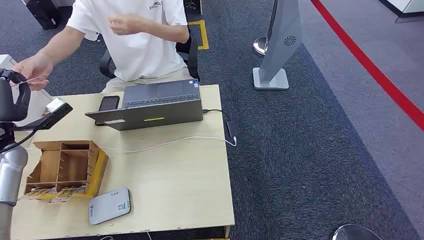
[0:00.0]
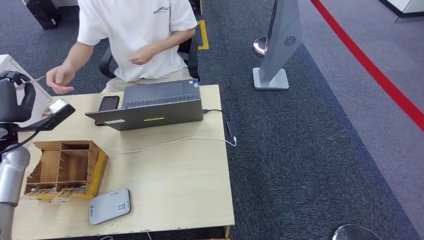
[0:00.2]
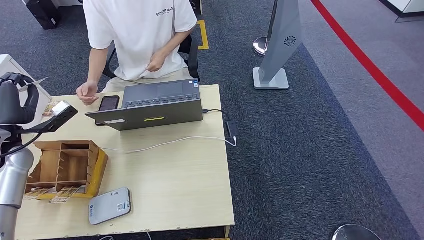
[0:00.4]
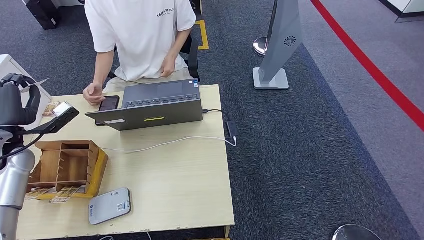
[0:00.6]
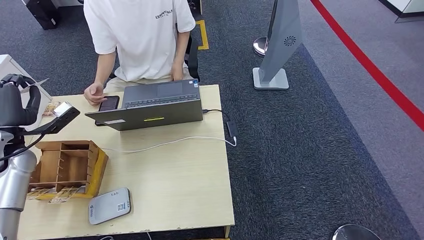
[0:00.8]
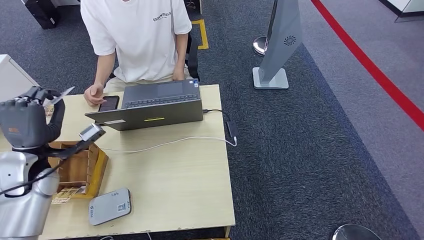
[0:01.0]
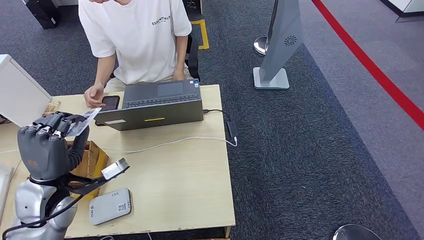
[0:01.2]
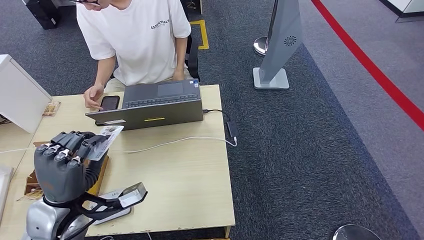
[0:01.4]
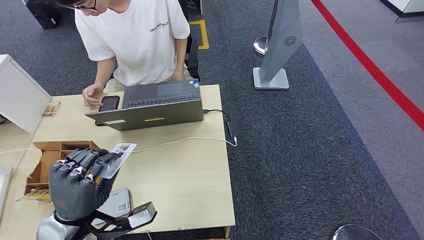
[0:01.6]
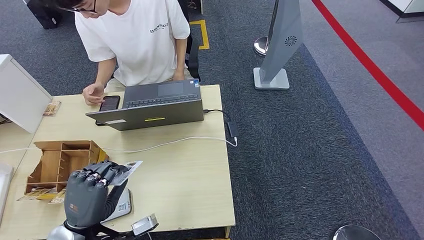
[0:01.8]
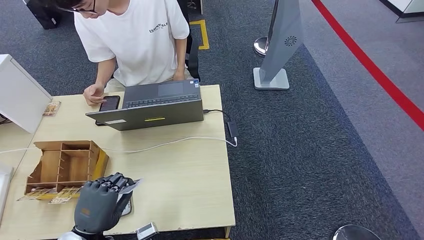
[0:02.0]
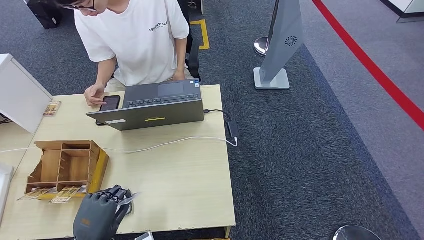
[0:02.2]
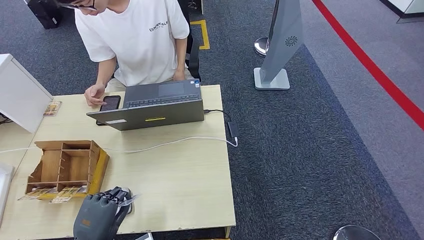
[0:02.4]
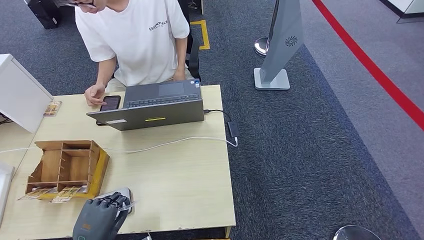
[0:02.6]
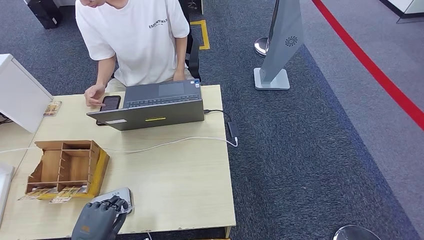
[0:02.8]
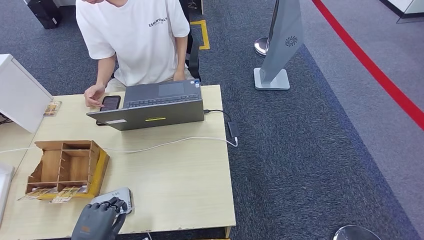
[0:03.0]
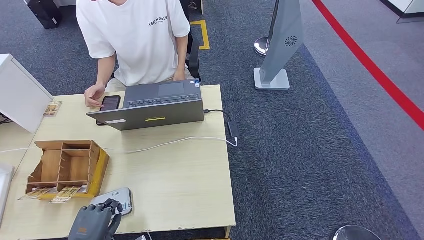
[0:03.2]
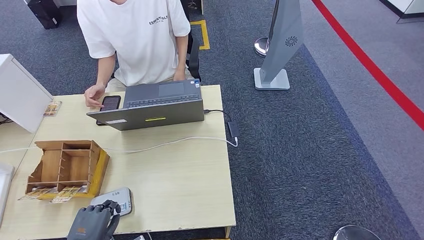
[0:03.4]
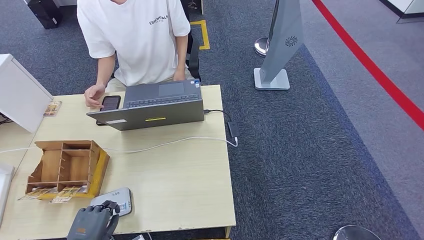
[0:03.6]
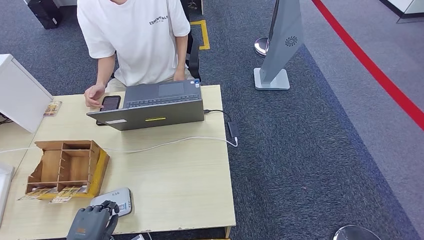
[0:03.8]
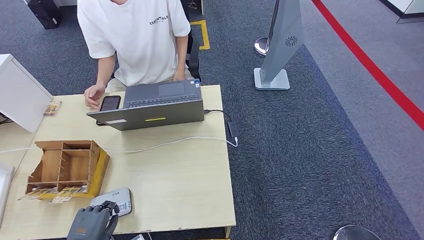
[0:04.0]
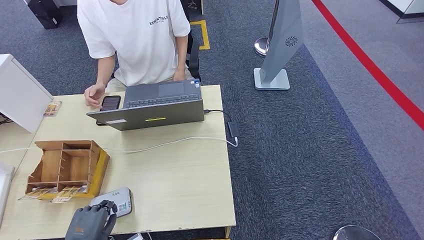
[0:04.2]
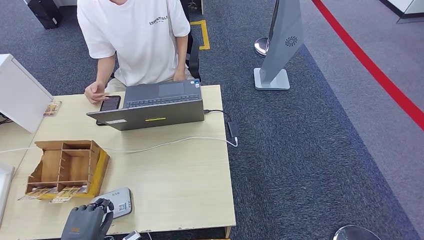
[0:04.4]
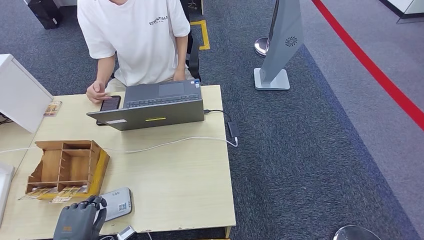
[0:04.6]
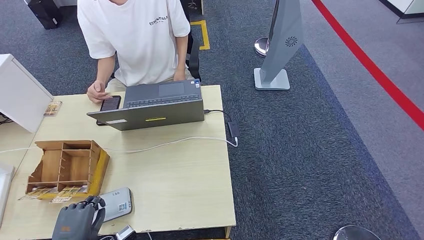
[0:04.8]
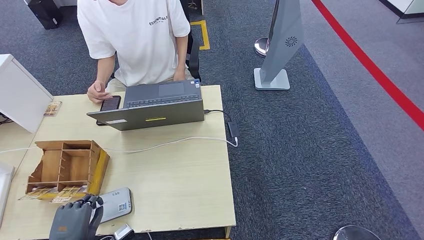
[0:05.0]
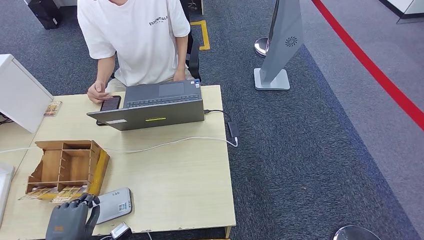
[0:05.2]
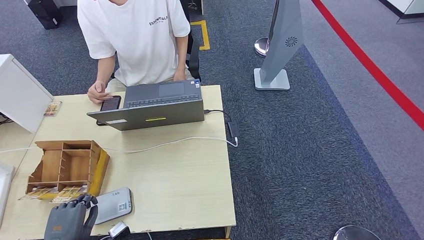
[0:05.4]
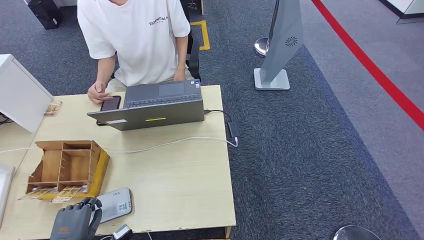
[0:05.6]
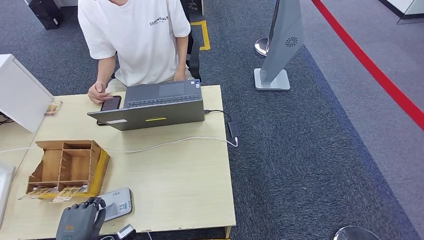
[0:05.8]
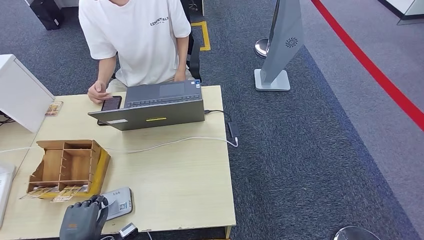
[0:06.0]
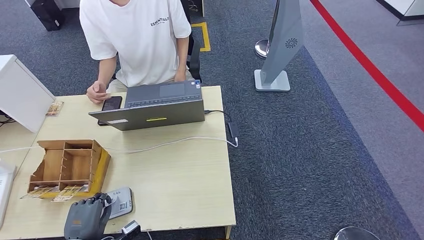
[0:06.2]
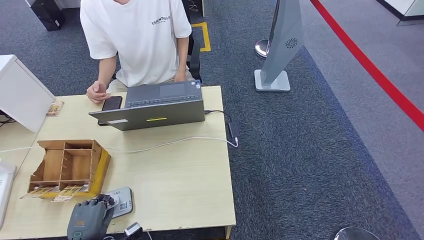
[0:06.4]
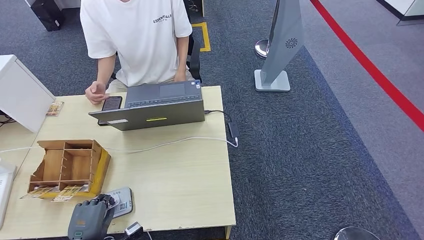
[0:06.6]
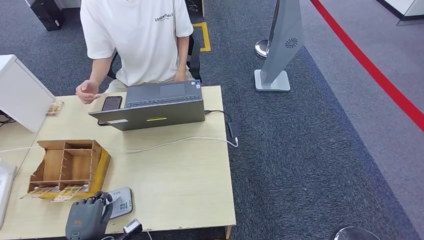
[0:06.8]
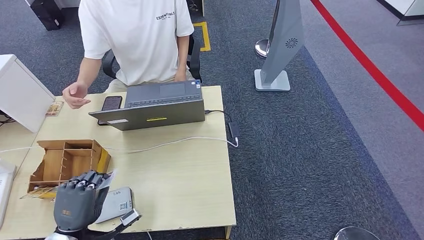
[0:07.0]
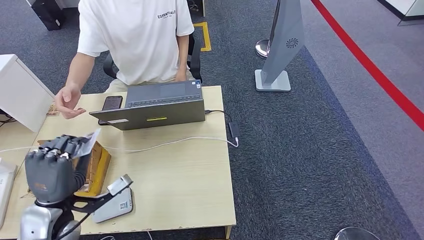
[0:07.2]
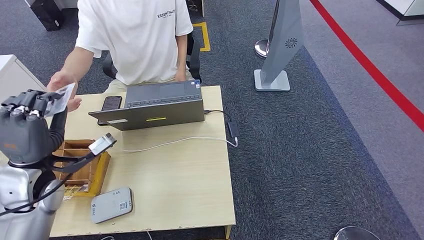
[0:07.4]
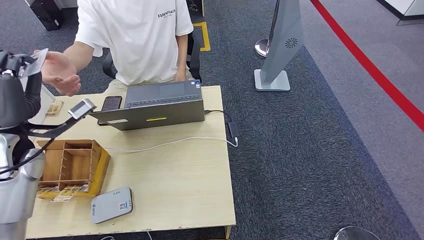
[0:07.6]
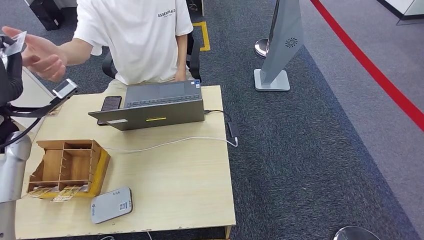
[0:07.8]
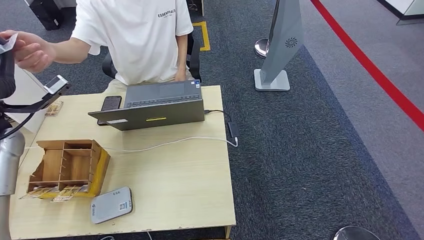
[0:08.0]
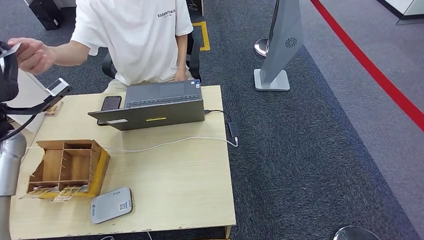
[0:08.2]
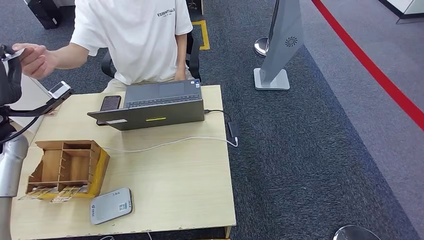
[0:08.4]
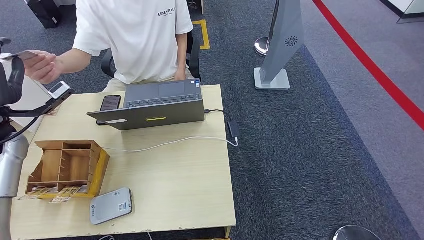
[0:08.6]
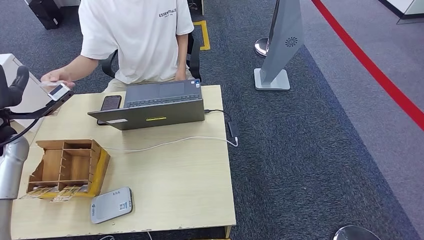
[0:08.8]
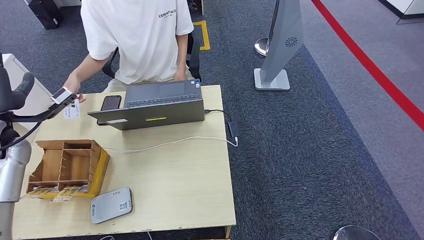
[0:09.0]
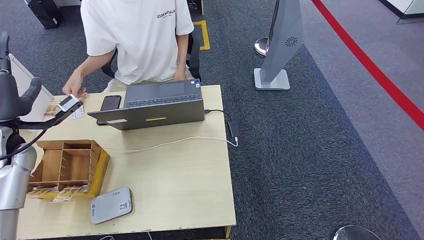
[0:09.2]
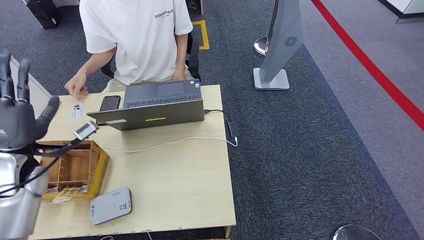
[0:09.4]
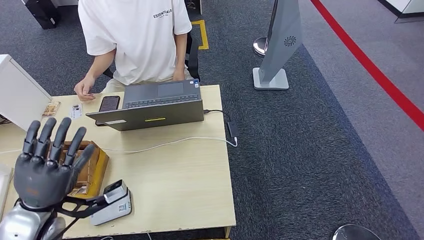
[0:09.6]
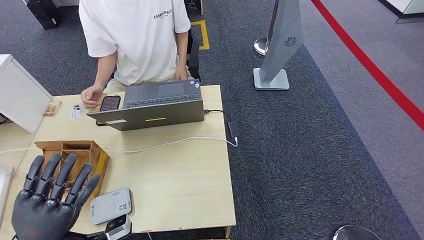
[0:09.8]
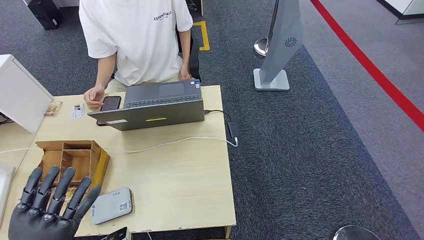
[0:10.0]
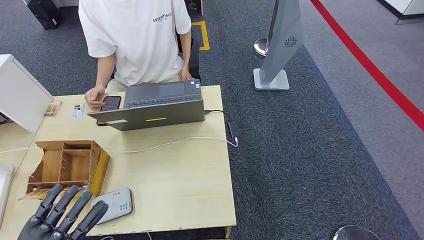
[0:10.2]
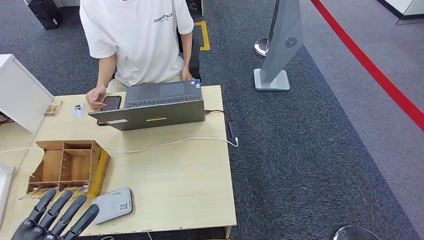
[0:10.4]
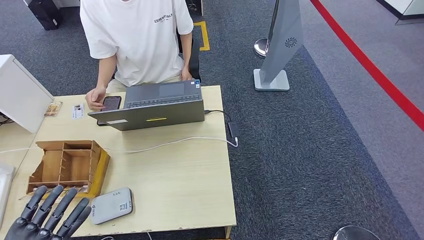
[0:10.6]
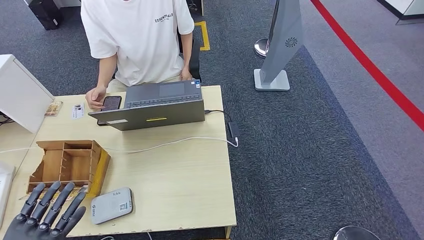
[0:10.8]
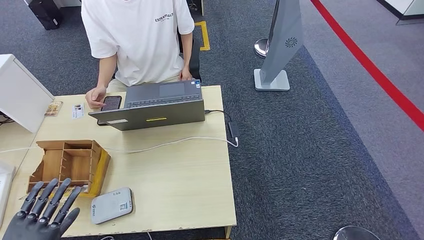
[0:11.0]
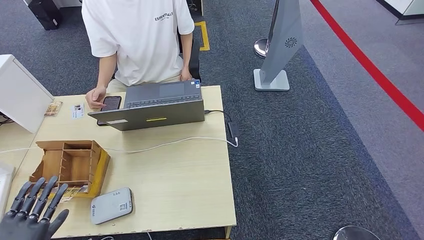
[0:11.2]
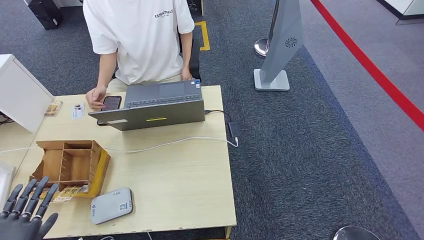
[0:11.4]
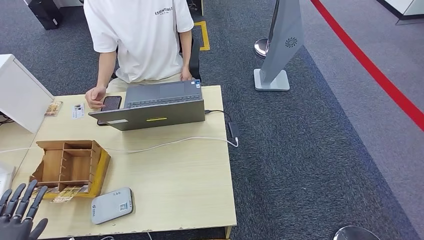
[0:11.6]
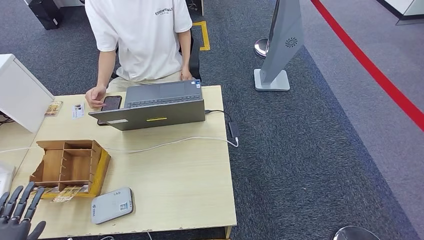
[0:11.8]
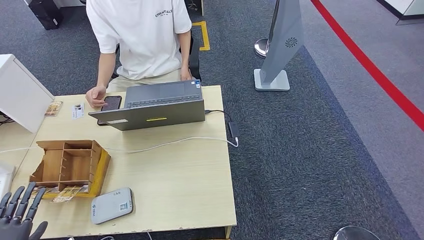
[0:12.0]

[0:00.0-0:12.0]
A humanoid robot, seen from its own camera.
Step, 0:00.0 to 0:01.0: Take the ID card from the person's hand.
Step, 0:01.4 to 0:06.8: Place the ID card on the card reader.
Step, 0:07.0 to 0:09.4: Hand the ID card to the person.
0:01.6 to 0:03.0: The left hand is displaced downward and backward by roughly 15 cm.
0:03.0 to 0:06.0: The hands move only a little.
0:06.0 to 0:07.6: The left hand goes some 35 cm upward and forward.
0:07.6 to 0:09.0: The left hand is displaced to the left by approximately 5 cm.
0:09.0 to 0:10.4: The left hand goes roughly 25 cm backward and downward.
0:10.4 to 0:12.0: The left hand shifts some 20 cm to the left and downward.

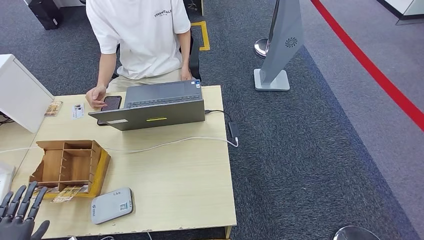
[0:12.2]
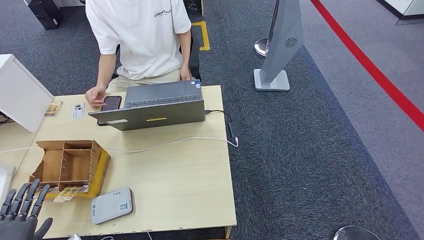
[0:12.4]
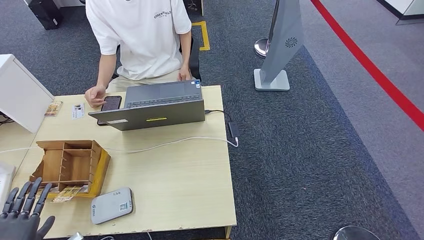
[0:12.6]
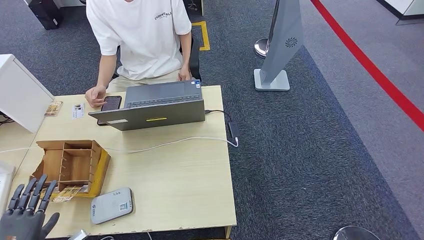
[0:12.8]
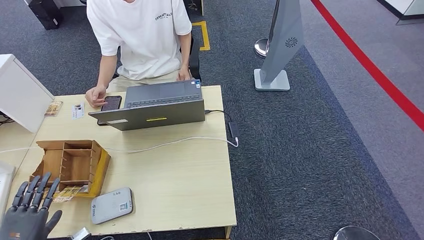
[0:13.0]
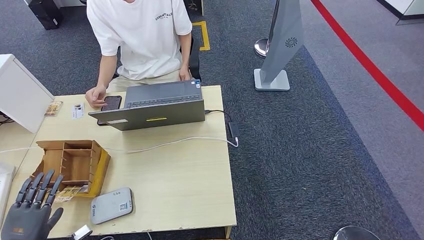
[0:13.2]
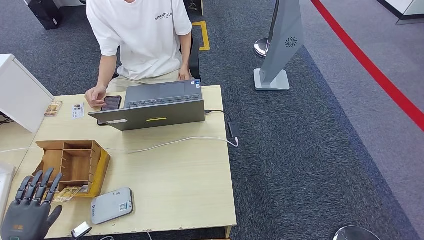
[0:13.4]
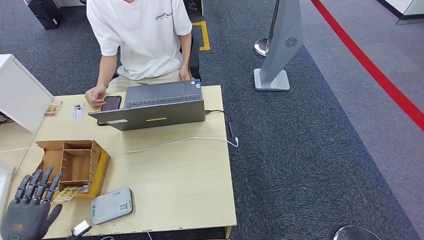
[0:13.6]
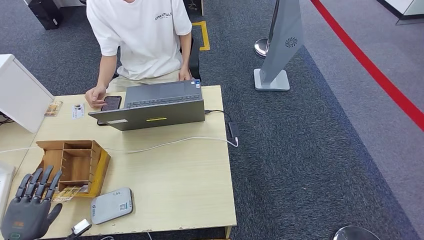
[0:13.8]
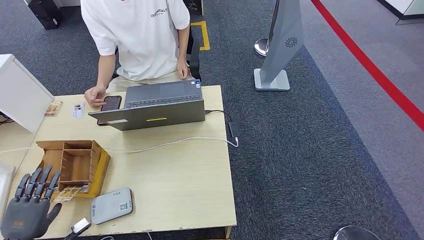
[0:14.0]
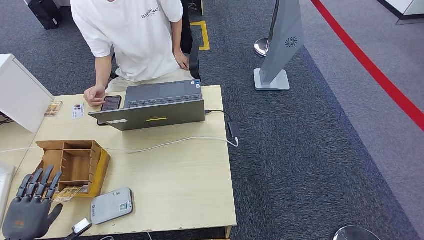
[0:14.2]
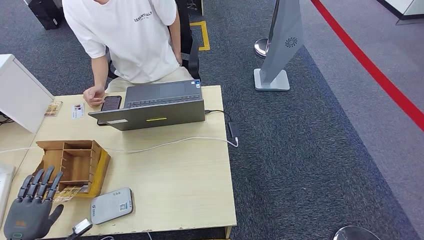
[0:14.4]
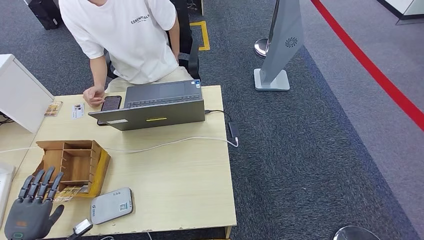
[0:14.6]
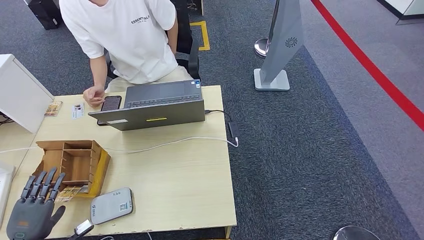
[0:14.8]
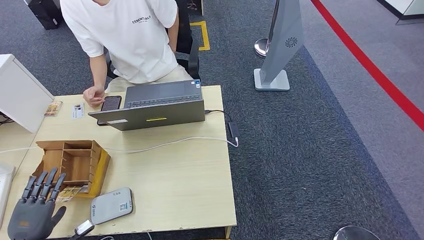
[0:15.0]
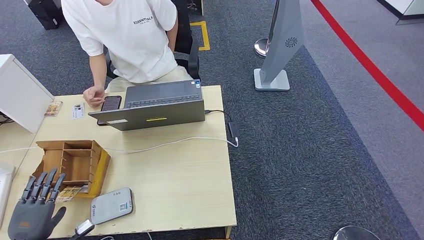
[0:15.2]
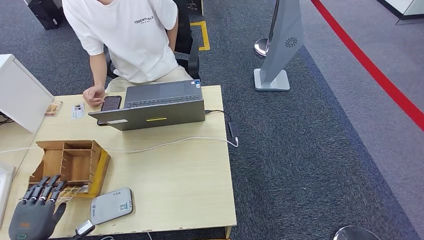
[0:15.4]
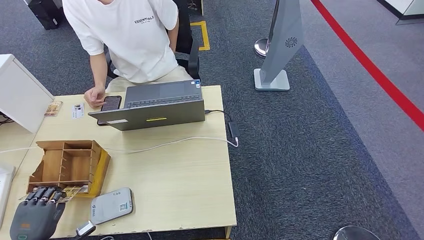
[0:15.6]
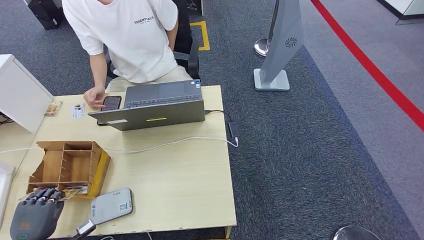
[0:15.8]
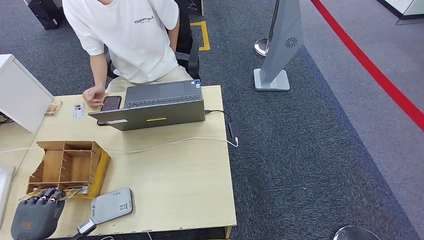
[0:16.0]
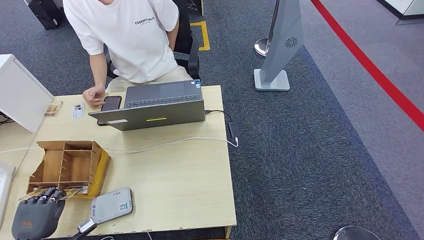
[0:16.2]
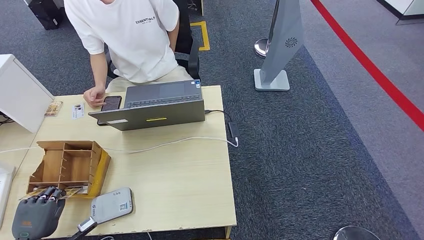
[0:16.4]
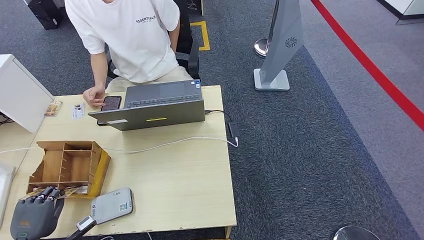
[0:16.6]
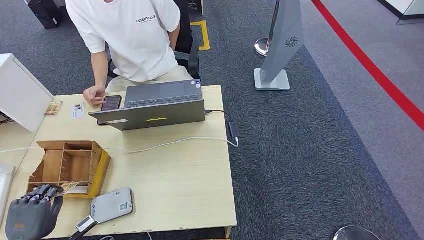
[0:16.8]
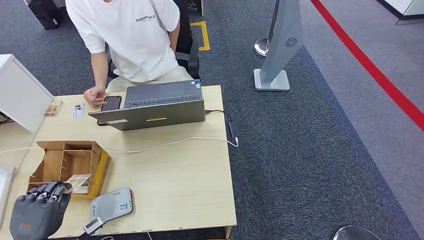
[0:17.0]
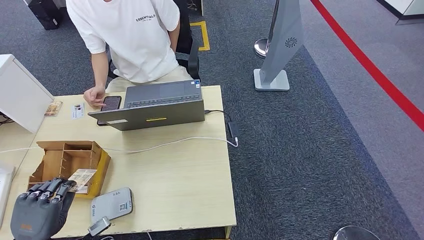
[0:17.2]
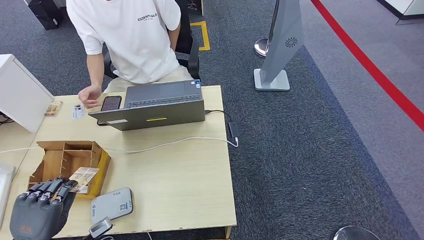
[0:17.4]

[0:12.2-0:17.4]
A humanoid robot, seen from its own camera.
0:12.2 to 0:14.0: The left hand changes place by approximately 5 cm.
0:14.0 to 0:15.6: The hands move only a little.
0:15.6 to 0:17.4: The left hand heads upward and to the right, covering roughly 10 cm.
